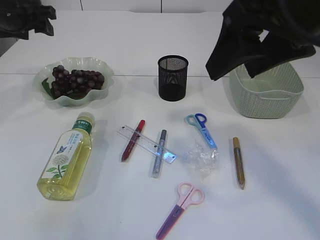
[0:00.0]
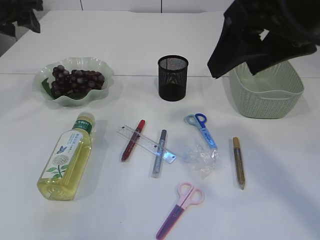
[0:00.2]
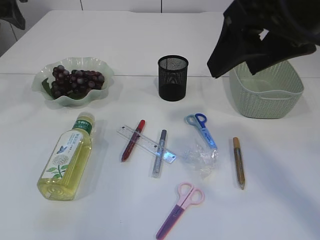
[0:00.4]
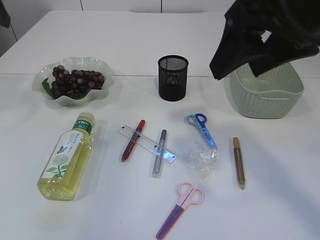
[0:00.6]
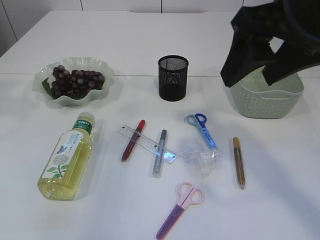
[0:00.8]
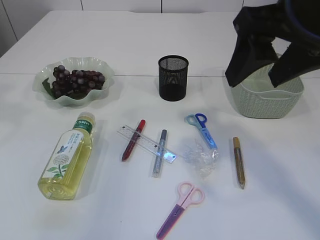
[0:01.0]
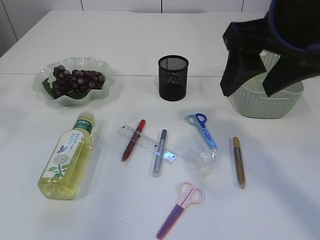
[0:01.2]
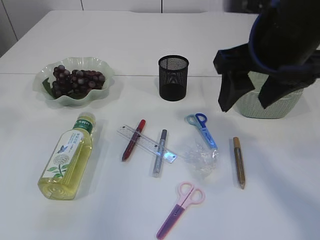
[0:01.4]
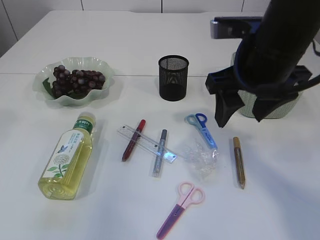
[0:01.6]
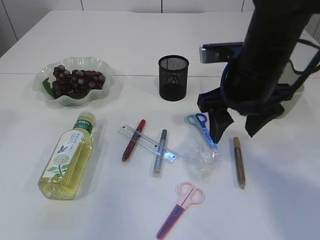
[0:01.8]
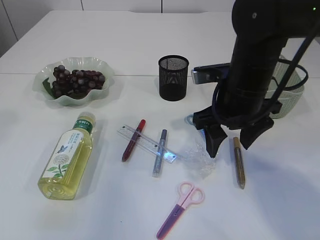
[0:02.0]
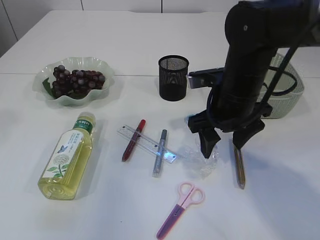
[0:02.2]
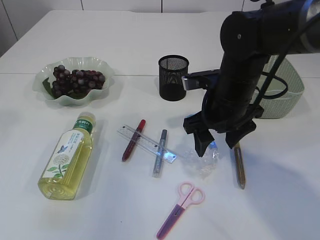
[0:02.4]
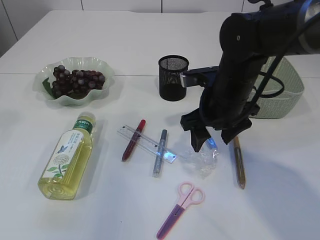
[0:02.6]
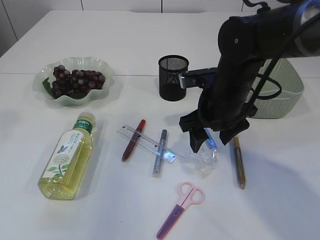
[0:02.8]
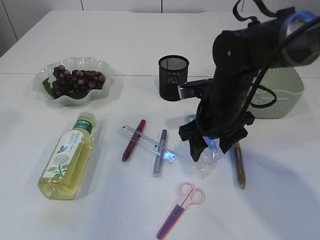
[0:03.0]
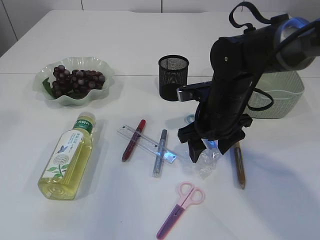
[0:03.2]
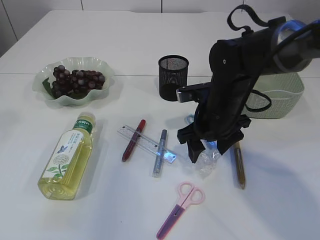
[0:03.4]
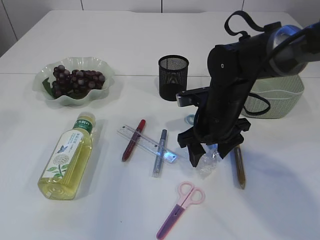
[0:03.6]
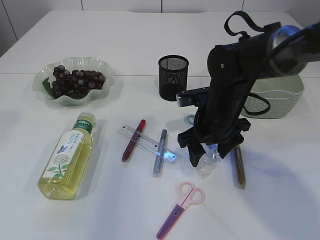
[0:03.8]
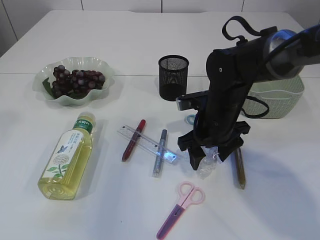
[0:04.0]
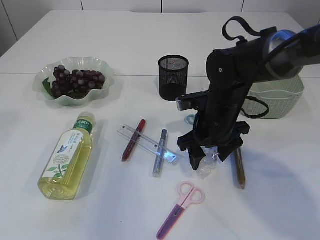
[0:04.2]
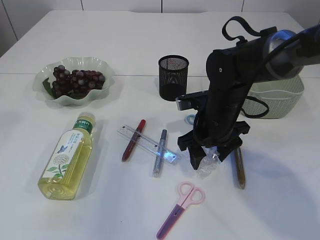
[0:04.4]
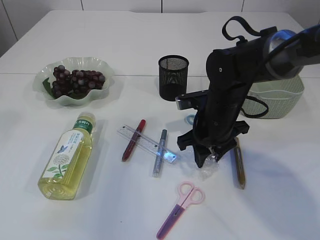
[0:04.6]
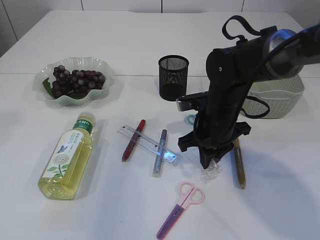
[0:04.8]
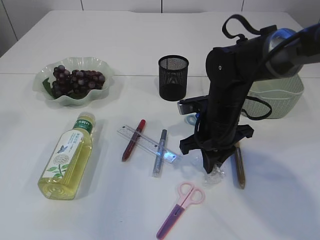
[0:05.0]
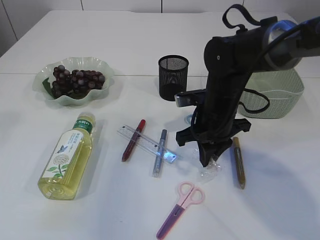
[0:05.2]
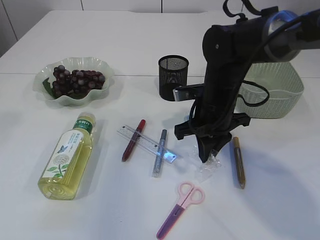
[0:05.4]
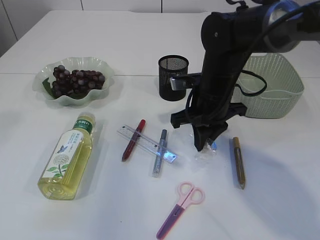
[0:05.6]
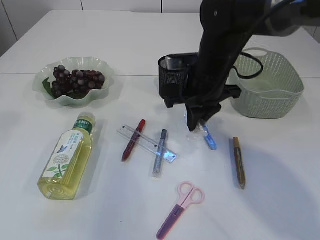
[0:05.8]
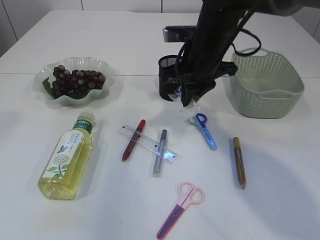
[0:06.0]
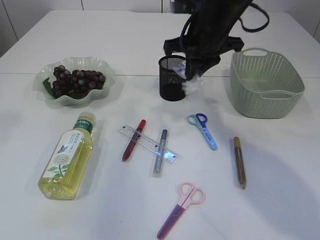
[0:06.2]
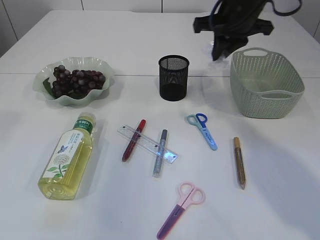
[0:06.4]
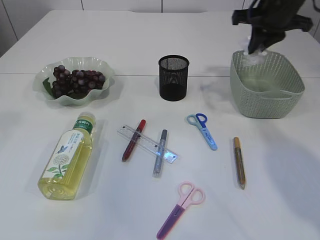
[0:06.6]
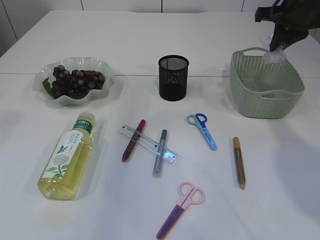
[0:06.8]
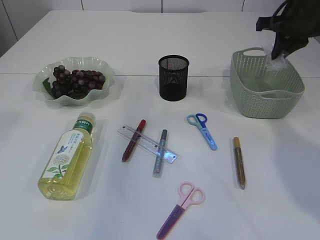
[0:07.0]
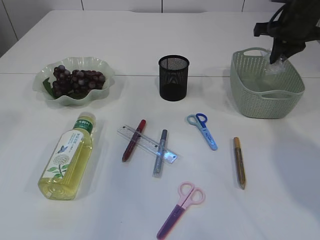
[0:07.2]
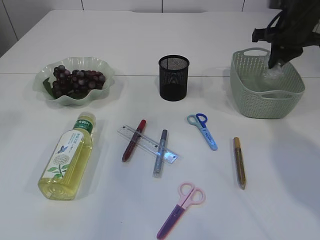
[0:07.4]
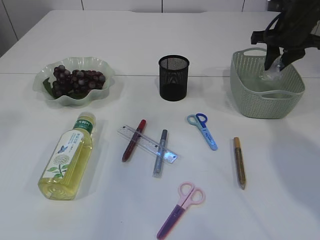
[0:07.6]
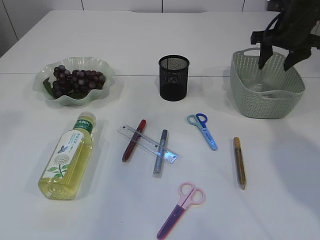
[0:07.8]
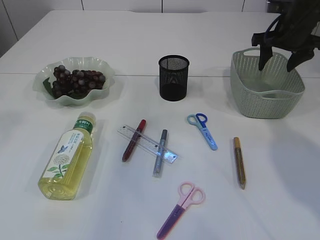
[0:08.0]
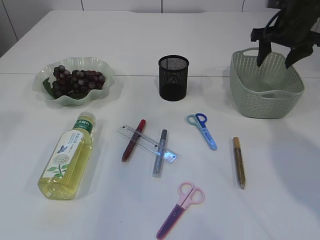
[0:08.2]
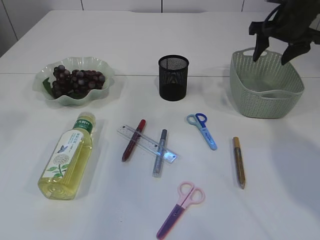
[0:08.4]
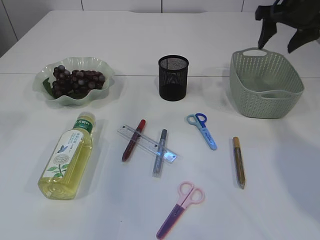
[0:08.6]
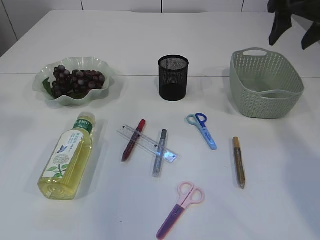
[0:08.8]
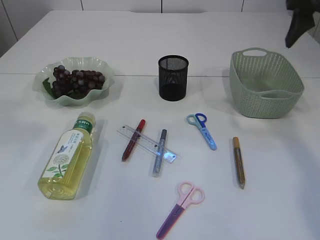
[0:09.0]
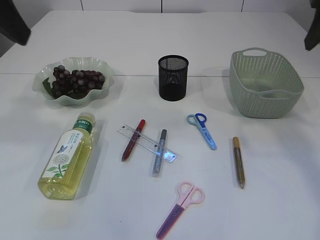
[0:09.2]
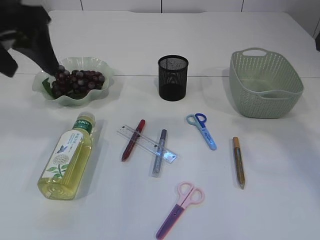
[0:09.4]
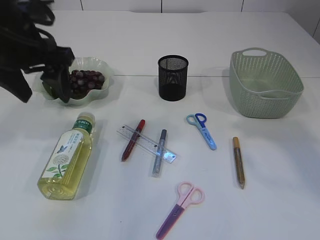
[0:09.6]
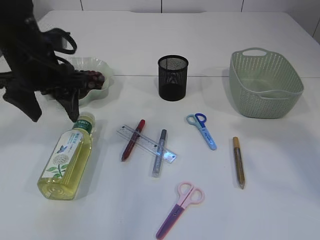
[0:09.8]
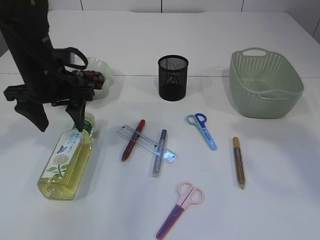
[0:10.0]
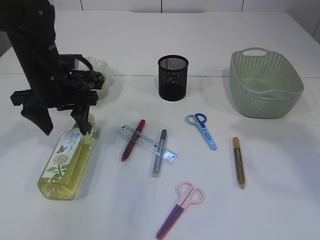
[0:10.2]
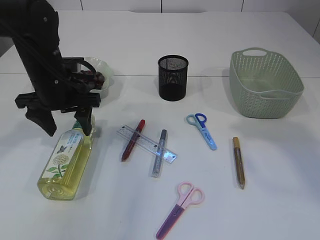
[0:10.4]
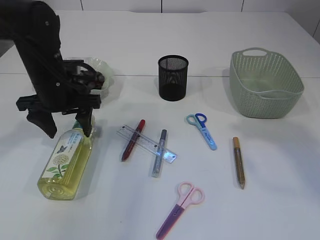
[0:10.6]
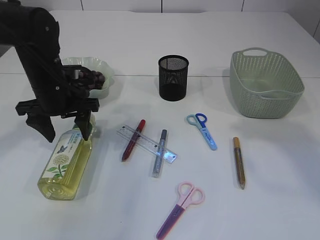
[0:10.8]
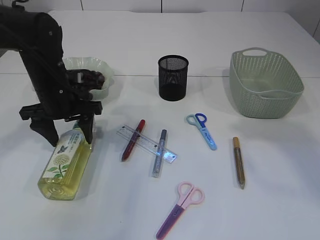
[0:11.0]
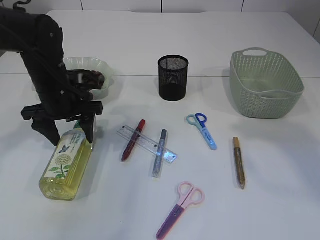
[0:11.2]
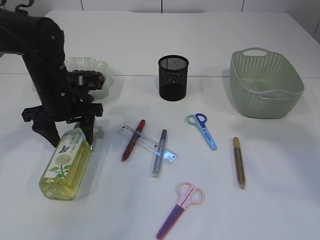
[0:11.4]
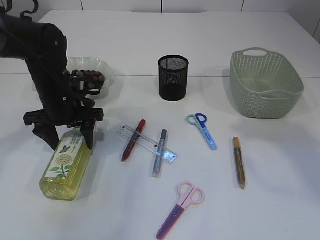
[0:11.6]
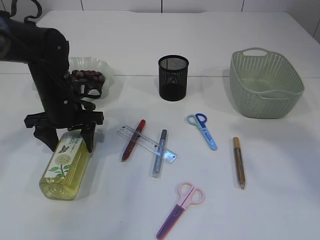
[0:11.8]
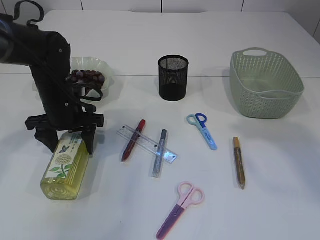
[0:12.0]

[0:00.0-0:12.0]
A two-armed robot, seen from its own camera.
Step, 0:00.0 to 0:05.8: Pick up the plastic.
Step, 0:06.0 to 0:08.2: Place the plastic in the basket.
0:00.0 to 0:01.6: The right gripper shifts about 10 cm downward and forward. Meanwhile the left gripper is displaced backward and upward by roughly 25 cm.
0:01.6 to 0:03.0: The right gripper is displaced downward and forward by some 15 cm.
0:03.0 to 0:04.4: There are only small adjustments of the grippers.
0:04.4 to 0:06.0: The right gripper moves upward, approximately 10 cm, and closes its fingers.
0:06.0 to 0:07.6: The right gripper moves to the right and forward, about 20 cm.
0:07.6 to 0:09.0: The right gripper goes about 15 cm backward and upward, and opens up.
0:09.0 to 0:10.4: The left gripper moves downward and forward, some 25 cm; the right gripper moves backward and upward, roughly 15 cm.
0:10.4 to 0:12.0: The left gripper shifts about 5 cm downward.

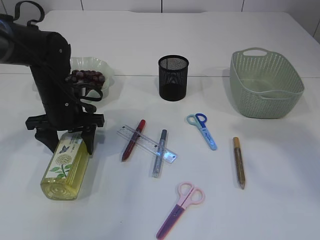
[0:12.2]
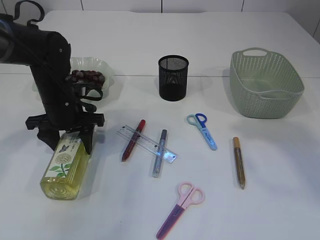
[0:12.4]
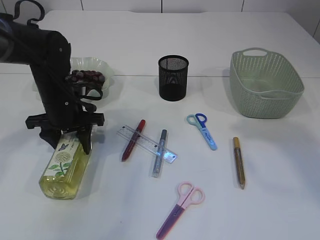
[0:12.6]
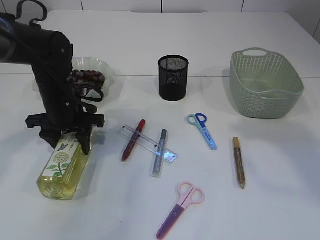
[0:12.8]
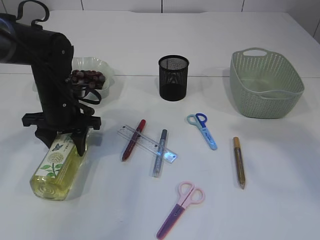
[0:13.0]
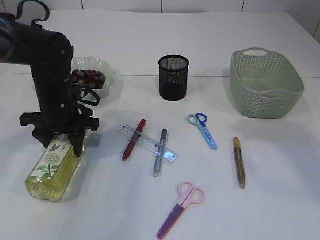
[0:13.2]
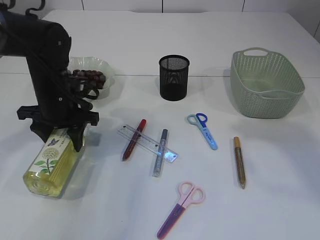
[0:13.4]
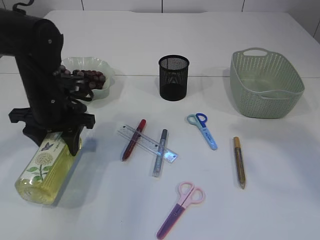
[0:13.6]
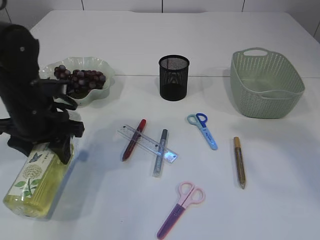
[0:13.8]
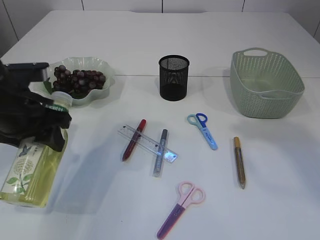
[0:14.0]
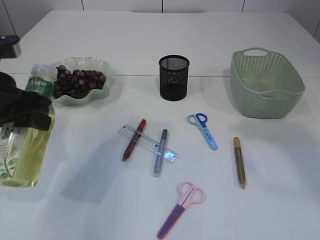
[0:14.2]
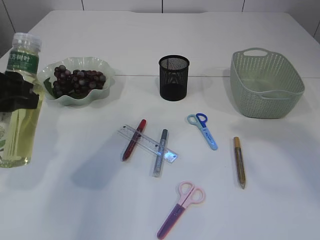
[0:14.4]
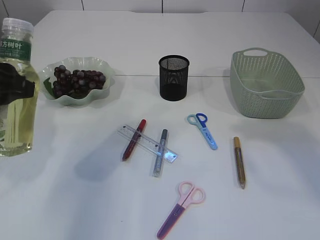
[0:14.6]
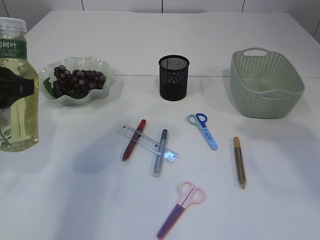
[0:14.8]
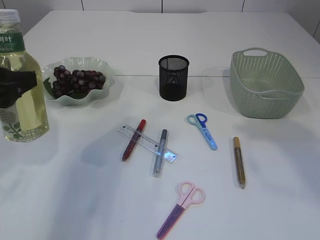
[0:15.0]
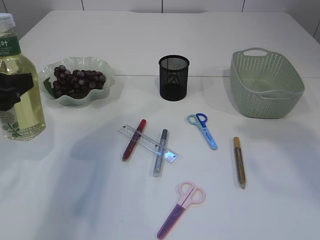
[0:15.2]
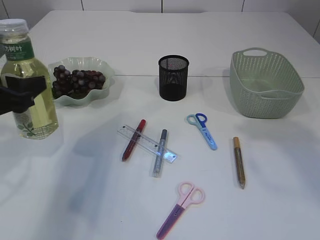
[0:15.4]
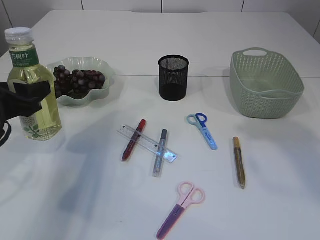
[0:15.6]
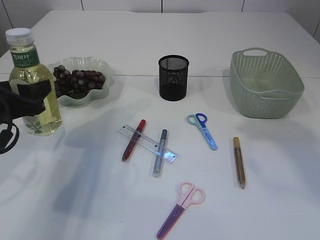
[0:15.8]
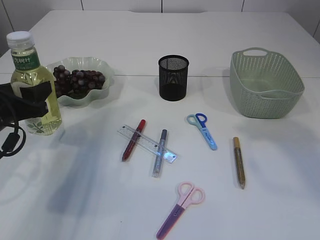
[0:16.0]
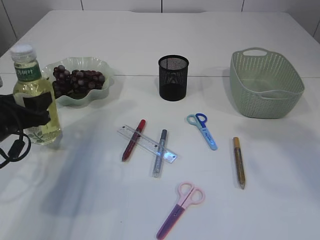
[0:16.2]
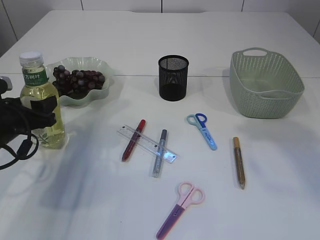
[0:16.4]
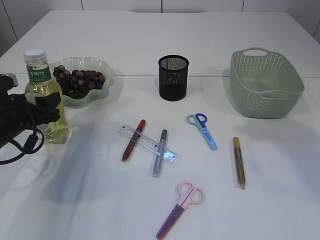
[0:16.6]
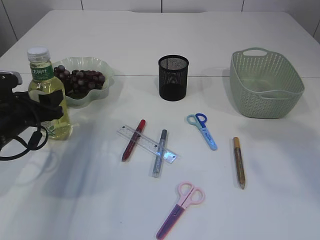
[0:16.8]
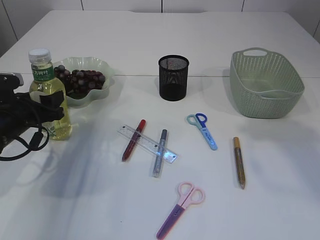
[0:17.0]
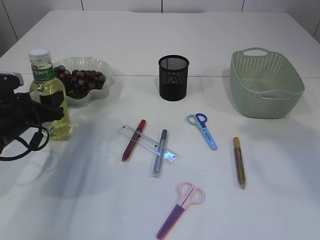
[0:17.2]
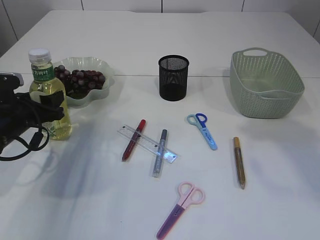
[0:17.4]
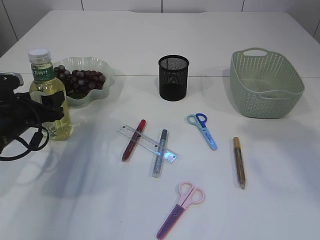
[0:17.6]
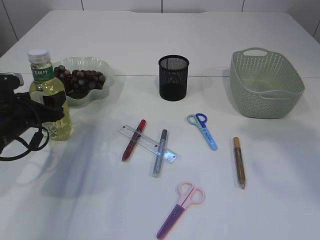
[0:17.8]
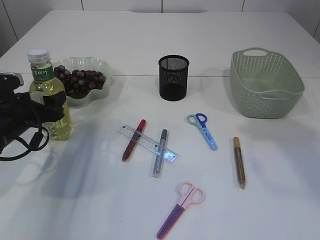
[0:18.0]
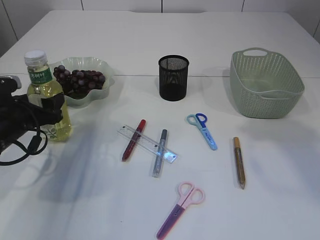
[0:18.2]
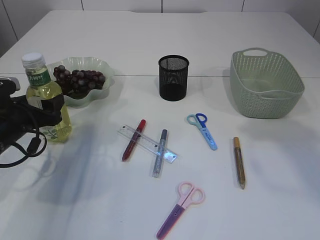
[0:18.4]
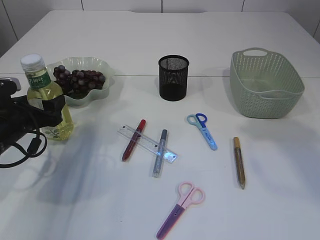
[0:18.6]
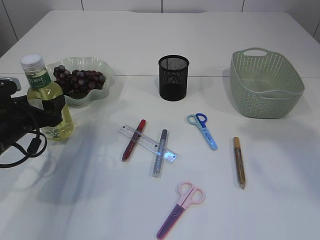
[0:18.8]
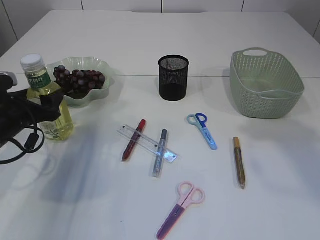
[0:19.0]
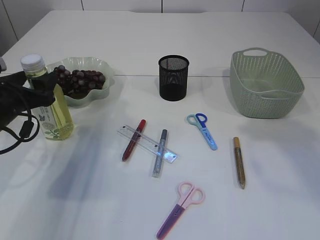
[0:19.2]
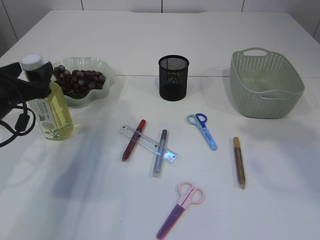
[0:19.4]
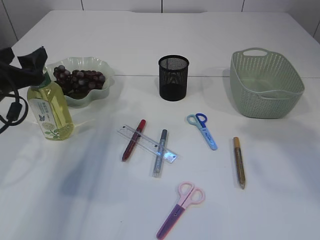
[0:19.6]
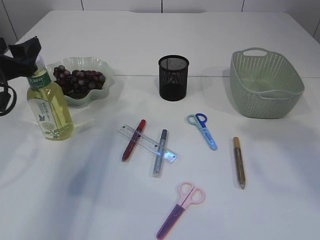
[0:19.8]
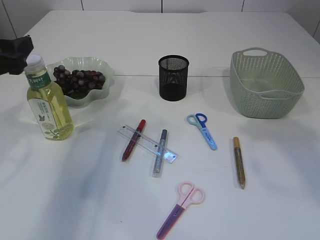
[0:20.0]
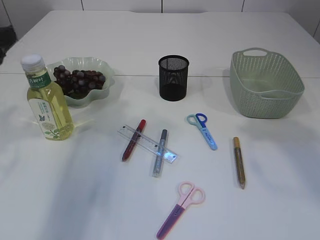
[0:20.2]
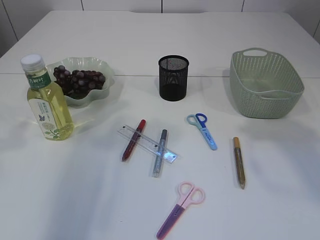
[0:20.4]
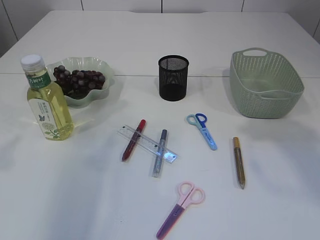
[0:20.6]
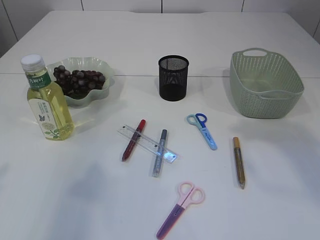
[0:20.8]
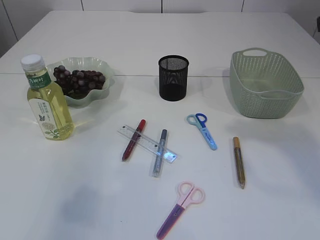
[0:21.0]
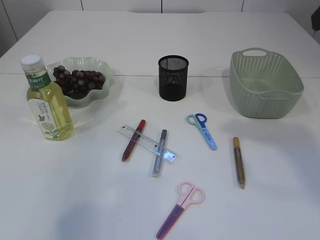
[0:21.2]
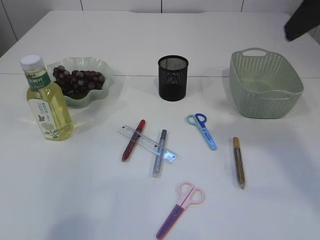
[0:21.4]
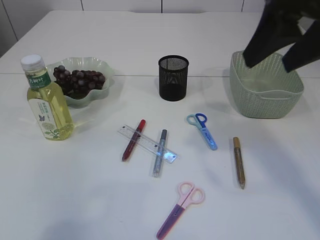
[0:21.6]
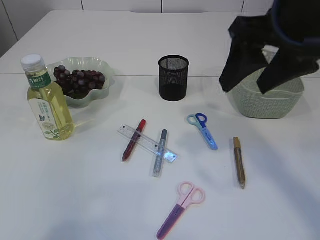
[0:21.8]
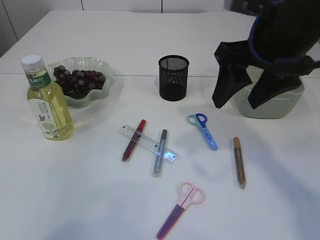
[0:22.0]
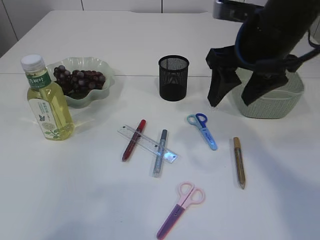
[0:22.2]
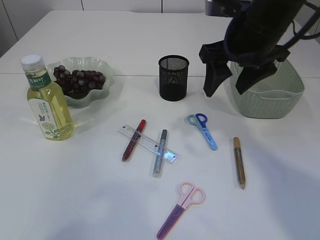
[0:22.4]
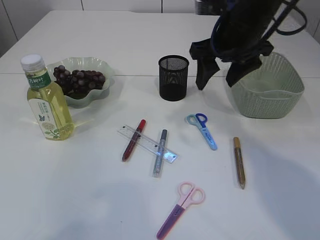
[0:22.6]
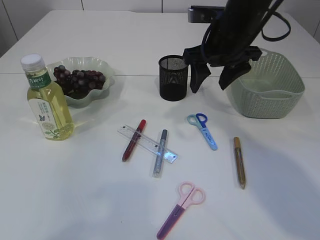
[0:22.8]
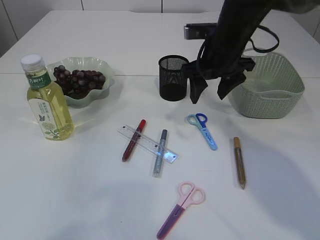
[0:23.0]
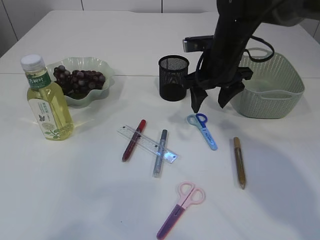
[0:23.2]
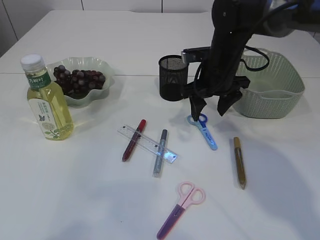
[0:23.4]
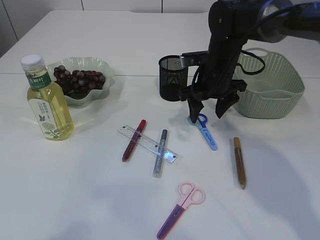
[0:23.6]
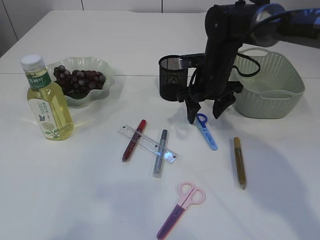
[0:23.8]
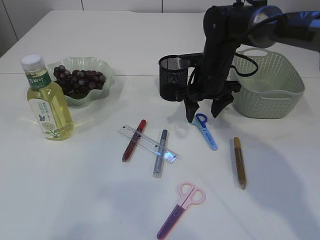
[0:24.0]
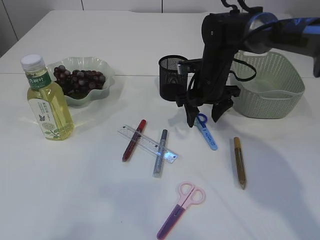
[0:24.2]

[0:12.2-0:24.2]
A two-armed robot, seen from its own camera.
Step, 0:13.8 to 0:20.0: Place the bottle.
0:12.2 to 0:13.8: The left gripper moves backward, about 5 cm.
0:13.8 to 0:15.2: The left gripper goes roughly 10 cm to the left, backward and upward.
0:15.2 to 0:16.6: The left gripper travels downward and forward by some 15 cm.
0:16.6 to 0:18.2: The grippers move only a little.
0:18.2 to 0:19.8: The left gripper moves upward, roughly 10 cm.
0:19.8 to 0:21.2: The left gripper is displaced backward and upward by some 25 cm.
0:21.2 to 0:22.6: The right gripper shifts approximately 20 cm forward, downward and to the left.
0:22.6 to 0:24.2: The right gripper is displaced downward and forward by about 15 cm.
